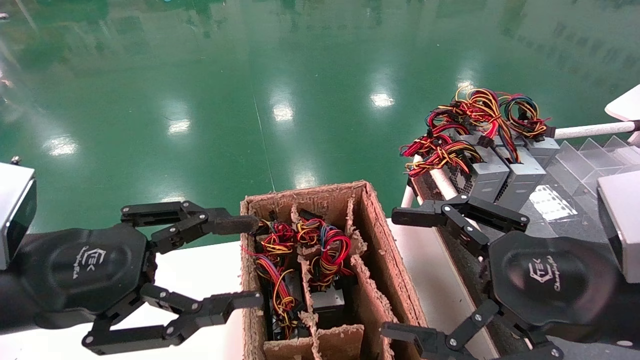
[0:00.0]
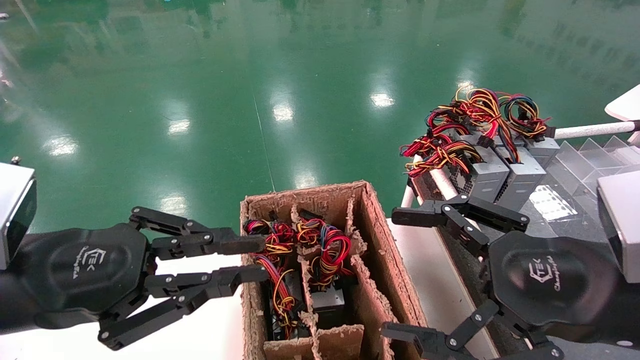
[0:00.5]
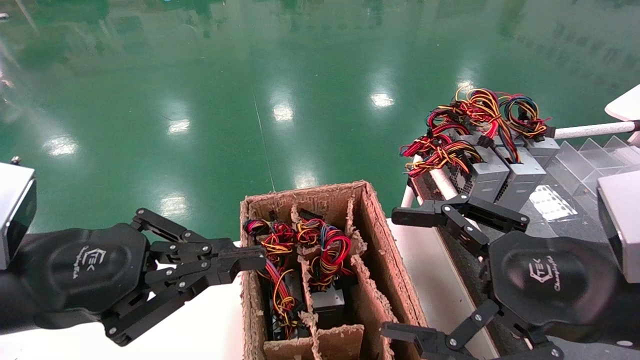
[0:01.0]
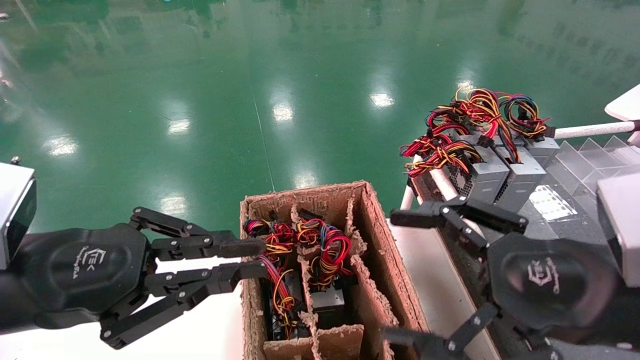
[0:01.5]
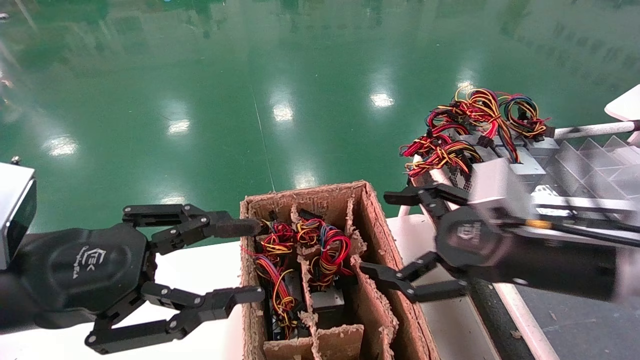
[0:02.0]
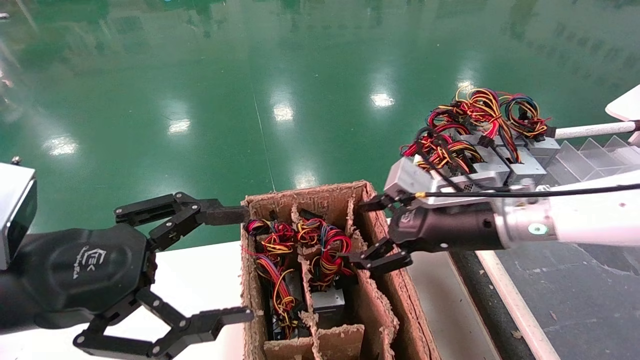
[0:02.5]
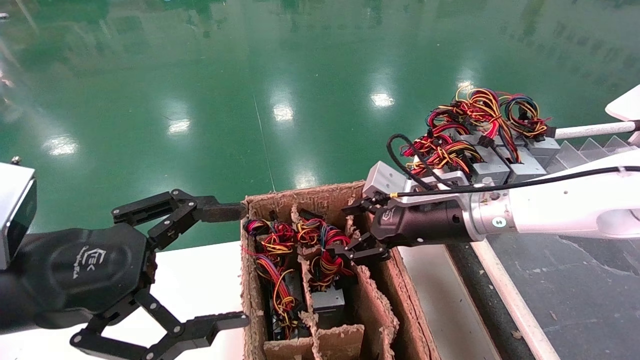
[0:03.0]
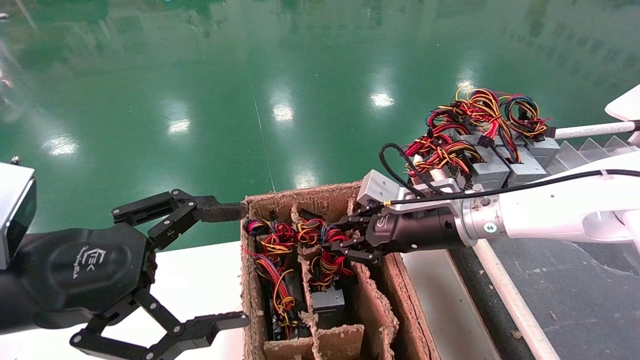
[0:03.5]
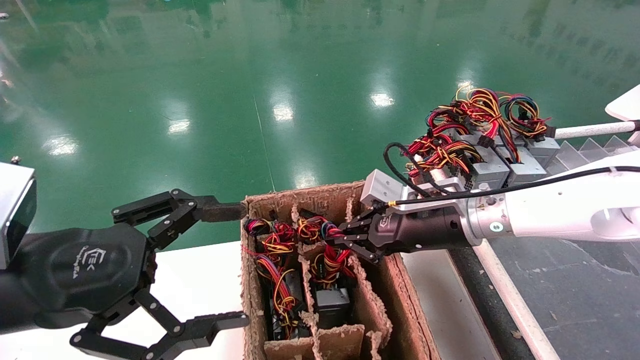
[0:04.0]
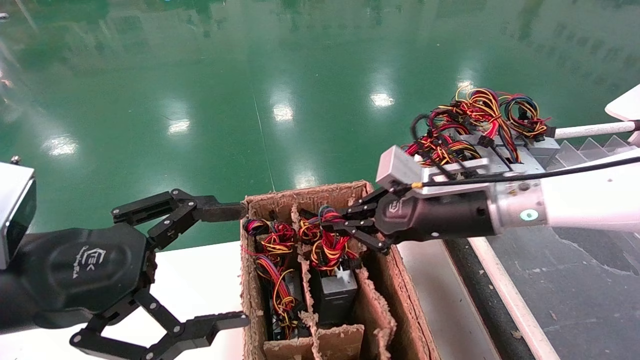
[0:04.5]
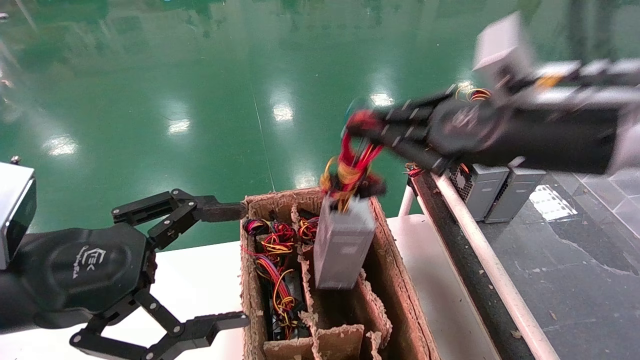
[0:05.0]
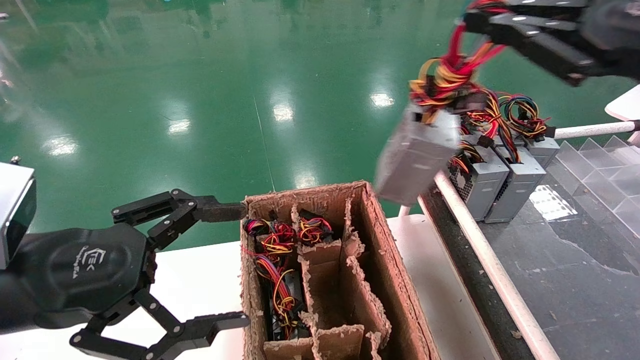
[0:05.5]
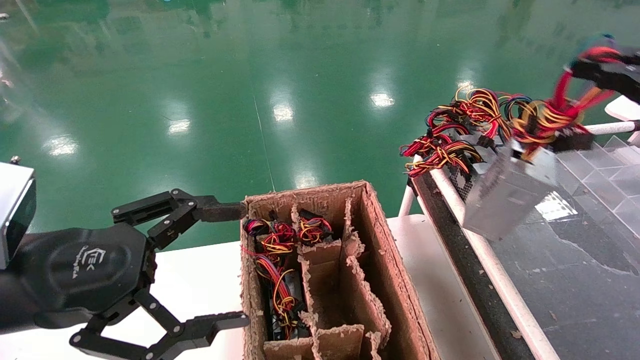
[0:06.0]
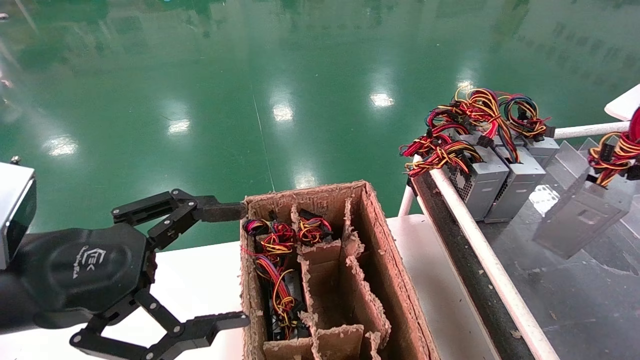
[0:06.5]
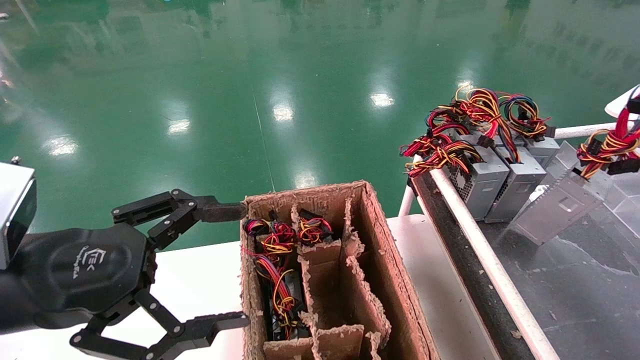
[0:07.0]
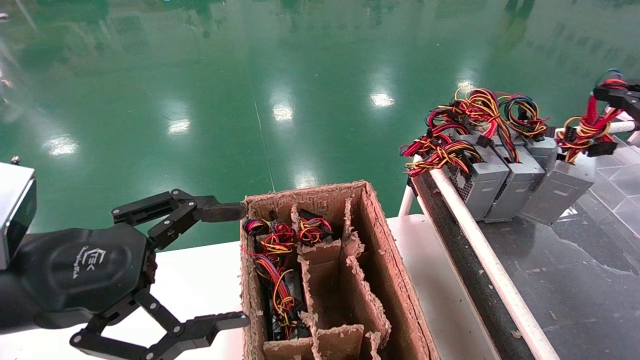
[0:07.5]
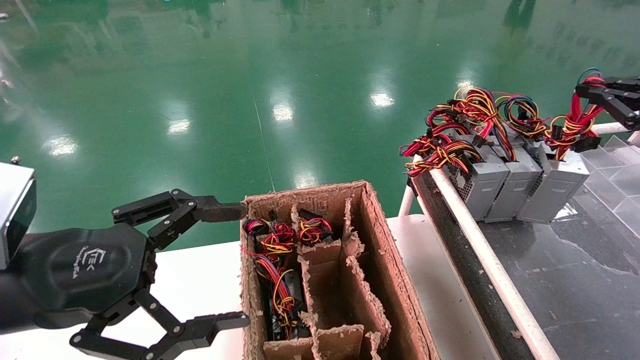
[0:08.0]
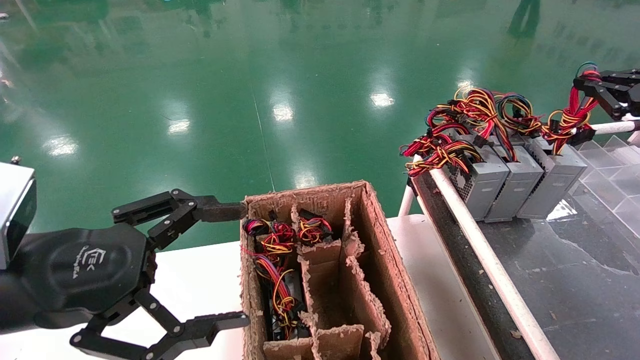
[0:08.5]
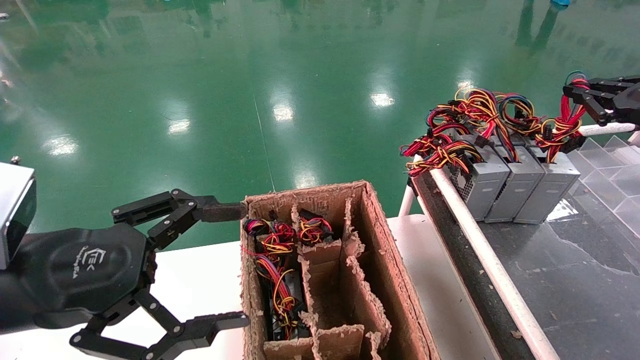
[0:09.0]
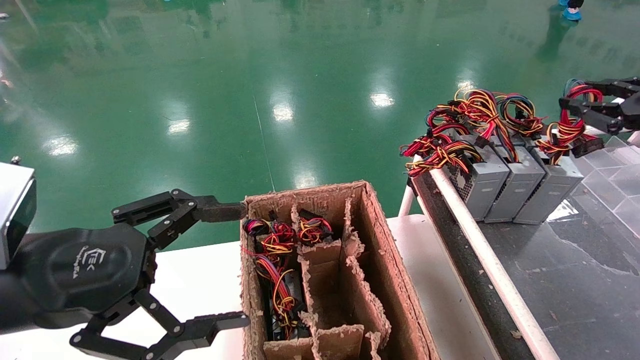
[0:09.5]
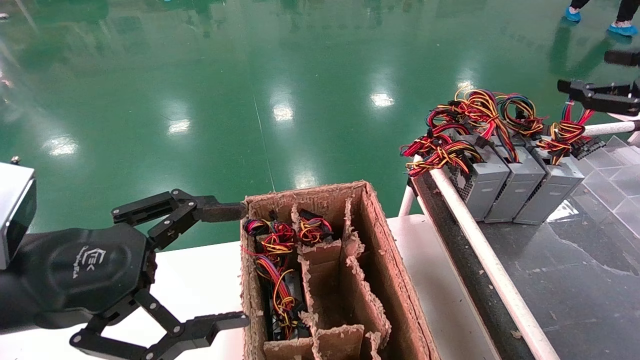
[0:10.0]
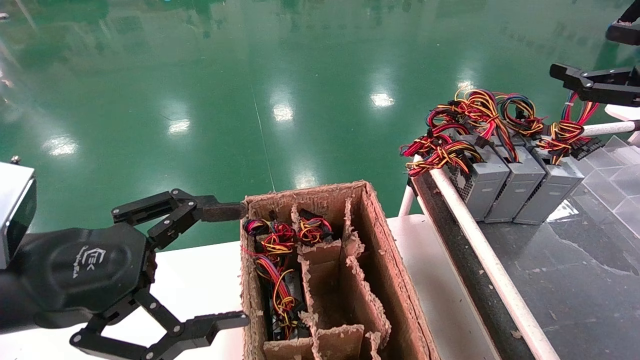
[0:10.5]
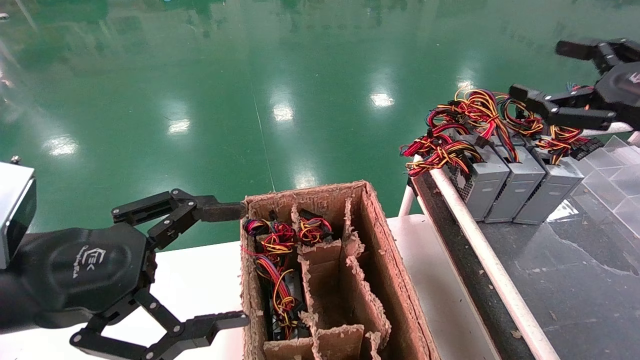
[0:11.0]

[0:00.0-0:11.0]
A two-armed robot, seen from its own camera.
Step, 0:01.0 to 0:03.5: Grab and lift the power supply from the large box.
Step, 0:04.0 to 0:09.0: Place the power supply on the operating table.
0:00.0 to 0:02.0: The left gripper closes and opens again. Meanwhile the right gripper moves forward, about 10 cm.
0:02.0 to 0:03.5: The right gripper moves forward and to the left, about 15 cm, and closes up, while the left gripper opens.
0:03.5 to 0:05.5: The right gripper shifts roughly 30 cm upward, to the right and backward, and closes its fingers.
0:05.5 to 0:07.5: The right gripper heads to the right, covering some 15 cm.
0:07.5 to 0:09.0: The right gripper is displaced forward by approximately 5 cm.
0:09.0 to 0:11.0: The right gripper travels to the left and backward by about 10 cm, and opens its fingers.

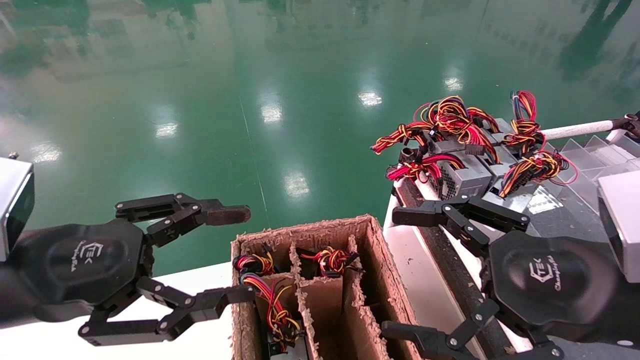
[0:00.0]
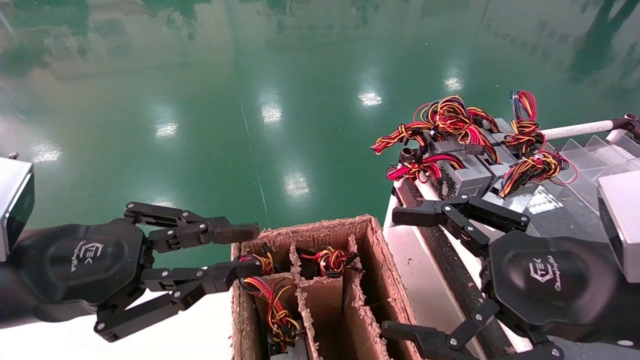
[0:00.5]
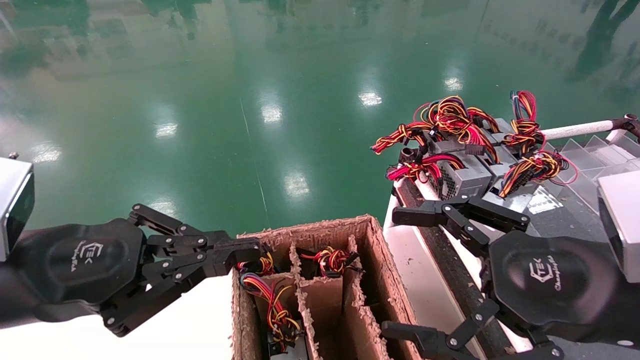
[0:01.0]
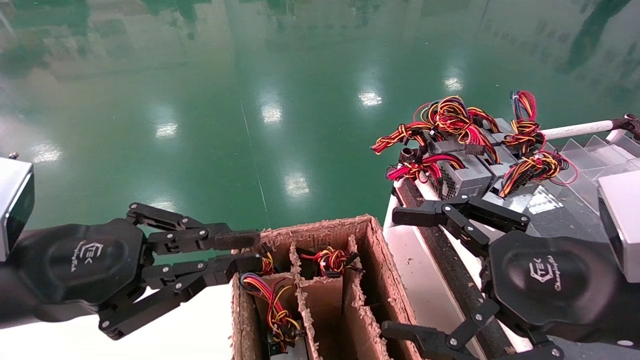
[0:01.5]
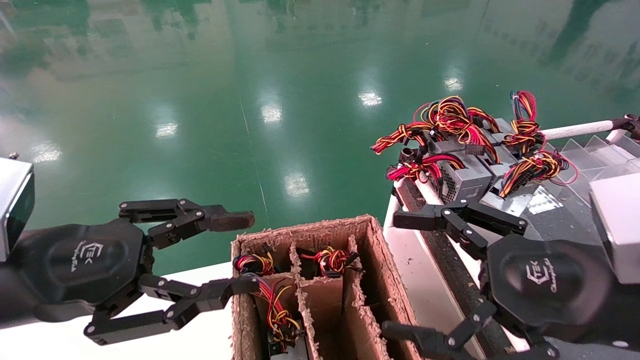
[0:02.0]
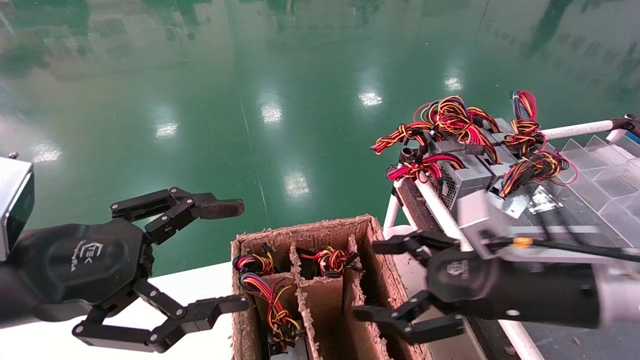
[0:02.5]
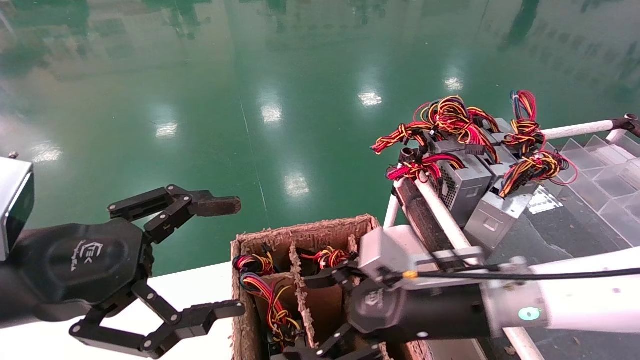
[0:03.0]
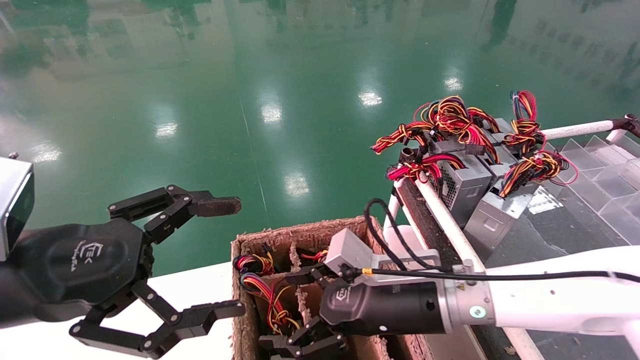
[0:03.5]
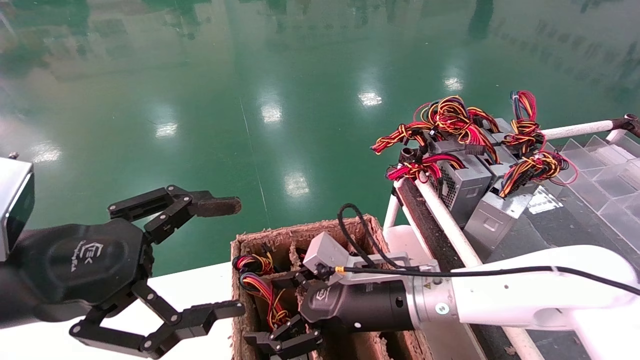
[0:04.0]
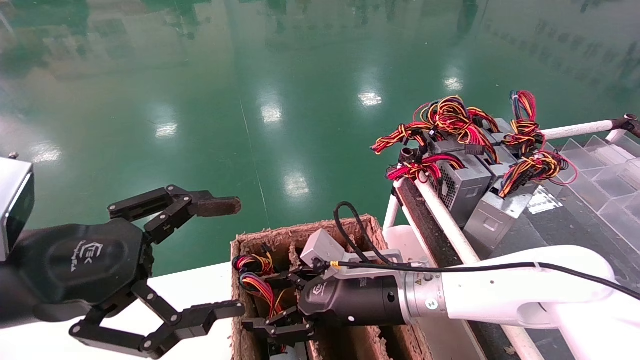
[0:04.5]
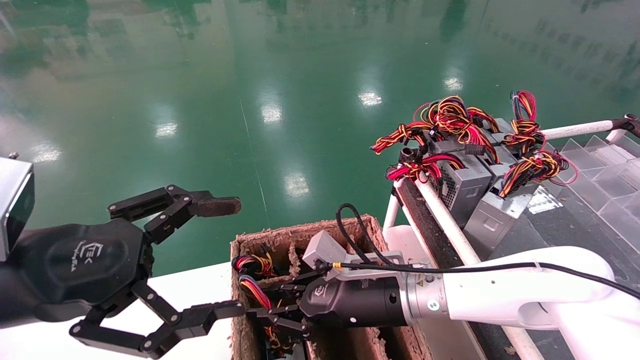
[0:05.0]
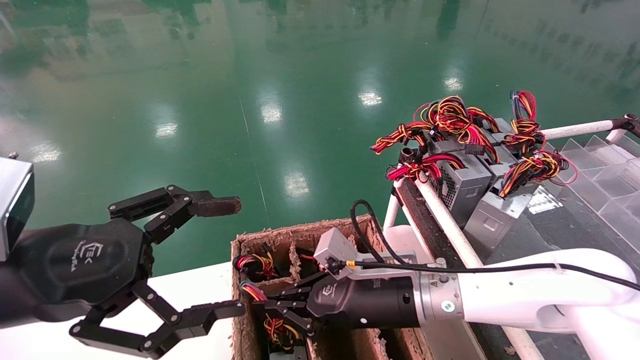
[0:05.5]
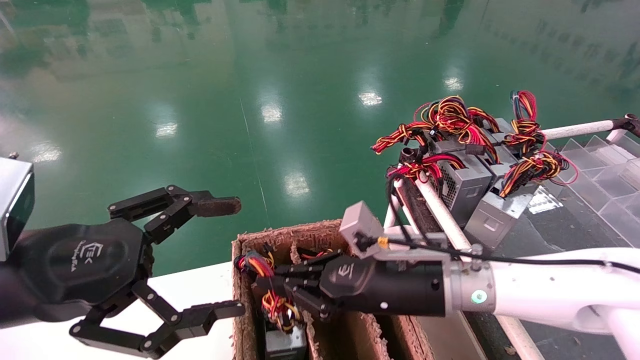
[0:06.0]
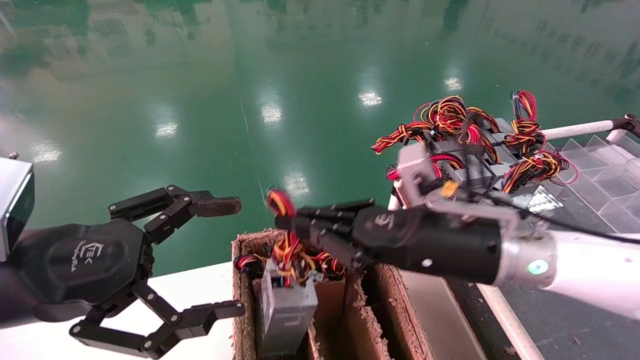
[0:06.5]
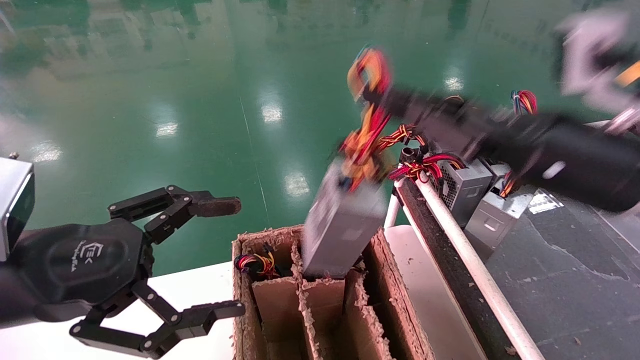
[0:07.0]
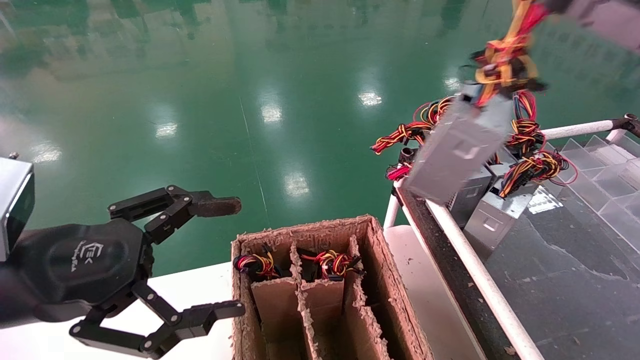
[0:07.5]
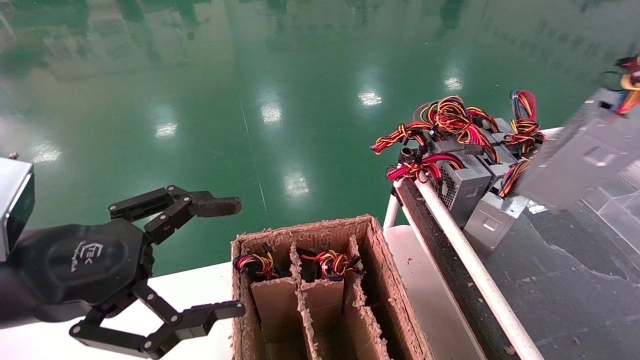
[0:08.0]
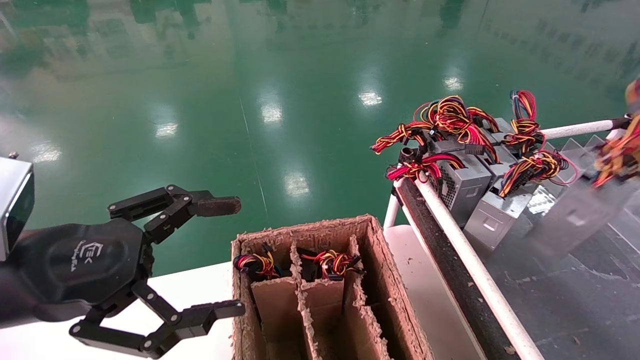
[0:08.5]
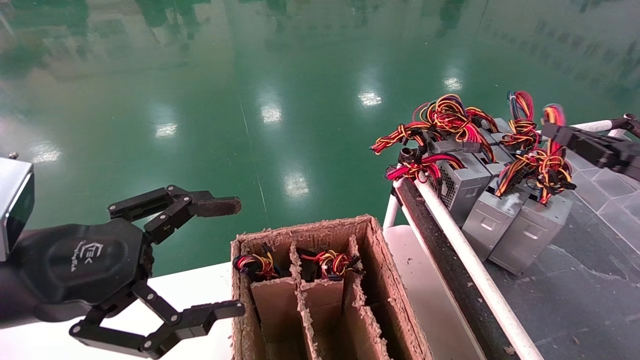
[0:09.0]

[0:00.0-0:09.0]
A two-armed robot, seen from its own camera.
Step, 0:01.5 to 0:05.0: Grab and lift the power supply from the large box.
0:00.0 to 0:02.0: The grippers stay close to where they were, moving slightly.
0:02.0 to 0:04.5: The left gripper opens its fingers. The right gripper goes roughly 25 cm to the left, forward and downward.
0:04.5 to 0:07.0: The right gripper travels upward and to the right by roughly 25 cm, and closes up.
0:07.0 to 0:09.0: The right gripper heads to the right, covering roughly 20 cm.
